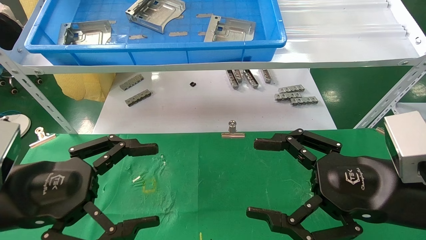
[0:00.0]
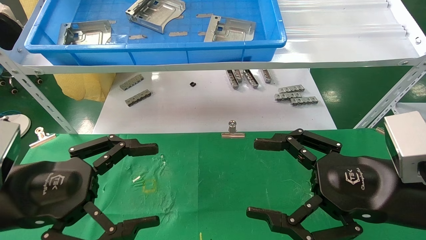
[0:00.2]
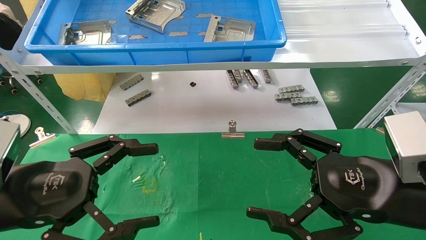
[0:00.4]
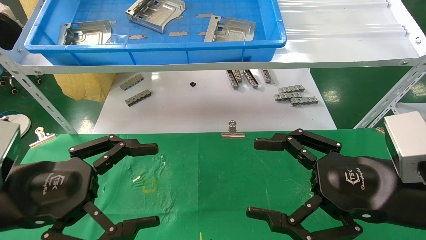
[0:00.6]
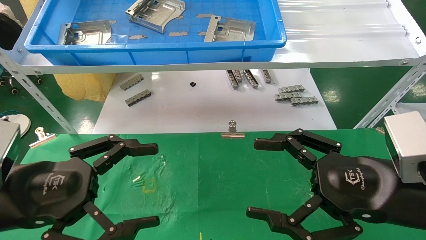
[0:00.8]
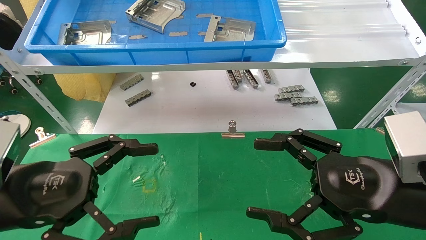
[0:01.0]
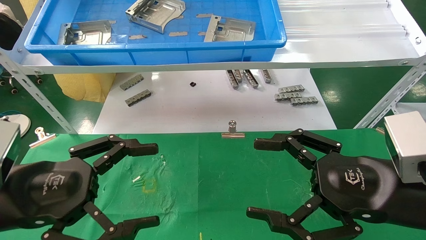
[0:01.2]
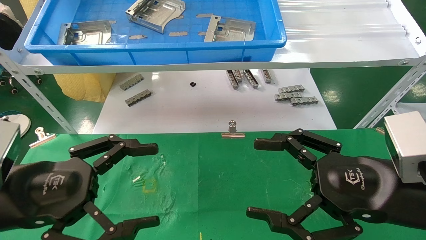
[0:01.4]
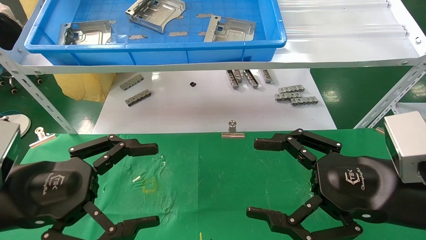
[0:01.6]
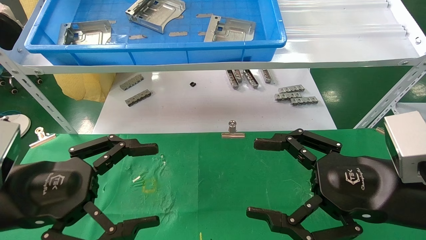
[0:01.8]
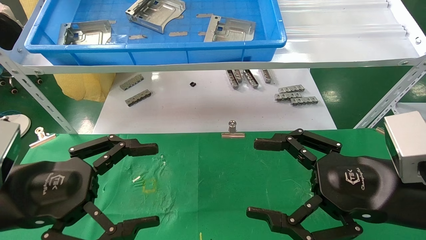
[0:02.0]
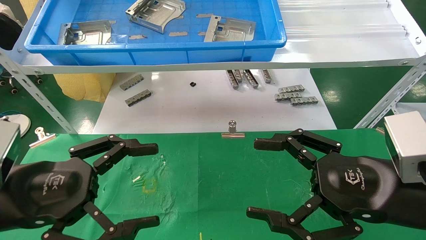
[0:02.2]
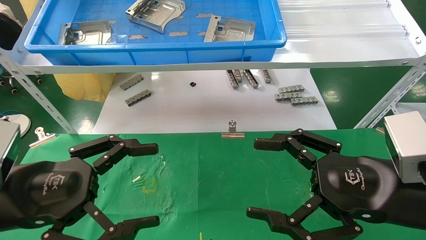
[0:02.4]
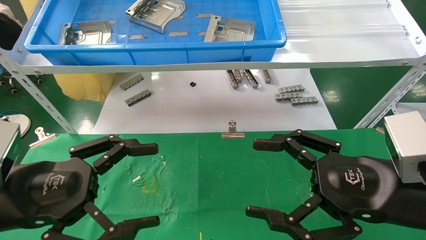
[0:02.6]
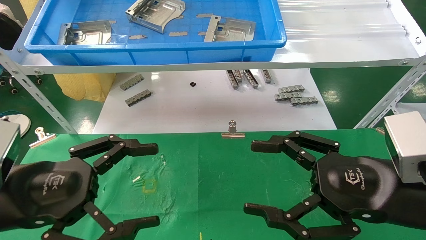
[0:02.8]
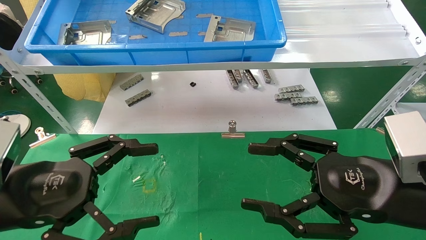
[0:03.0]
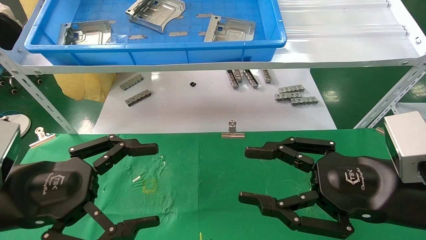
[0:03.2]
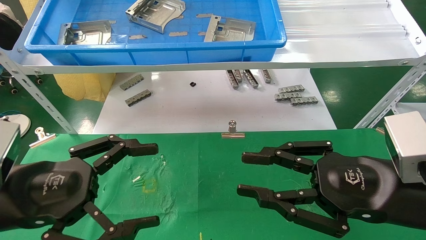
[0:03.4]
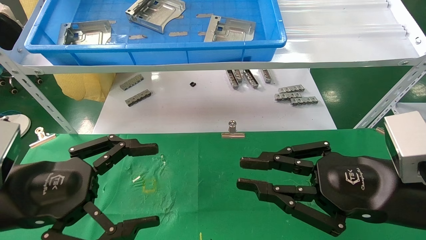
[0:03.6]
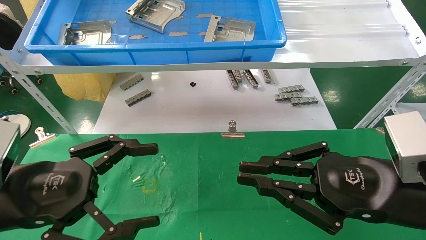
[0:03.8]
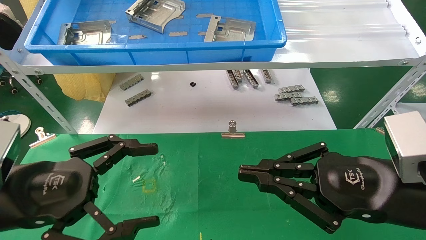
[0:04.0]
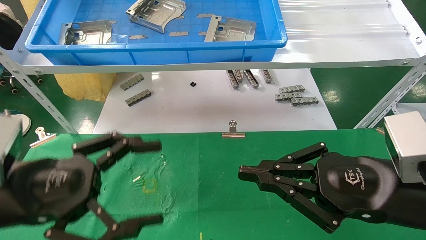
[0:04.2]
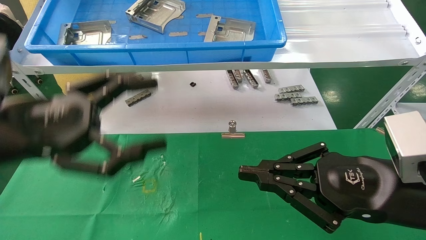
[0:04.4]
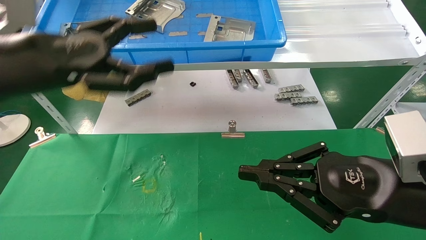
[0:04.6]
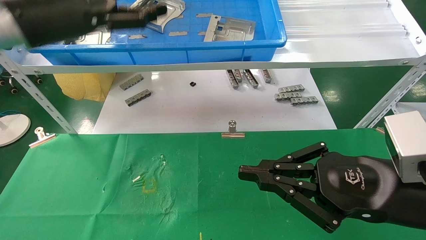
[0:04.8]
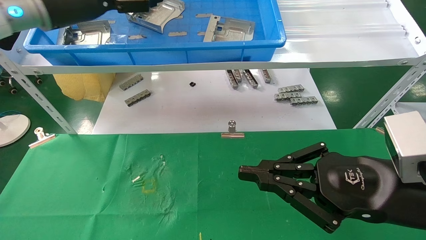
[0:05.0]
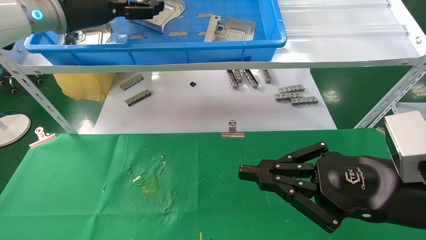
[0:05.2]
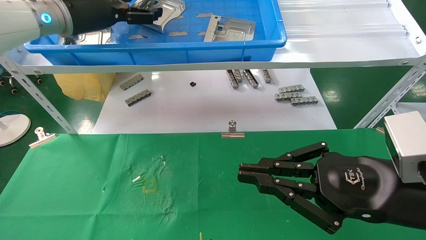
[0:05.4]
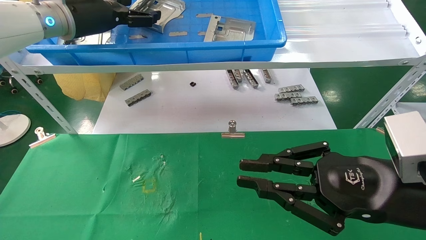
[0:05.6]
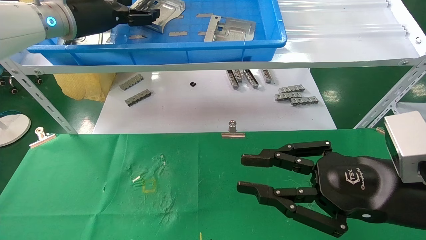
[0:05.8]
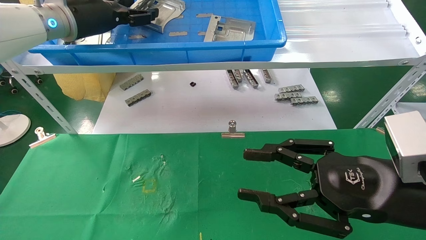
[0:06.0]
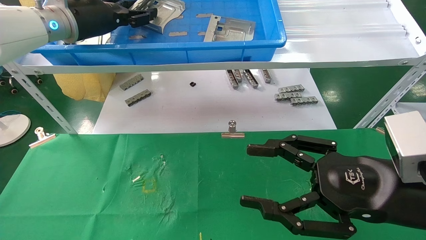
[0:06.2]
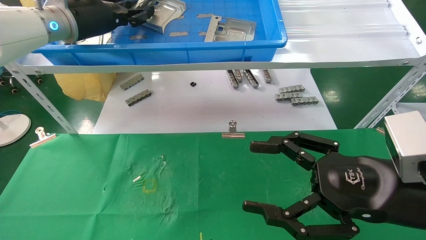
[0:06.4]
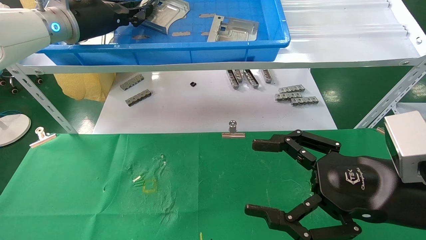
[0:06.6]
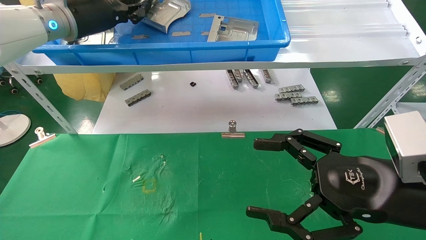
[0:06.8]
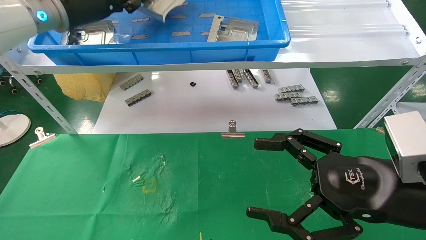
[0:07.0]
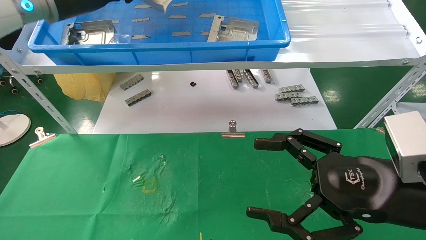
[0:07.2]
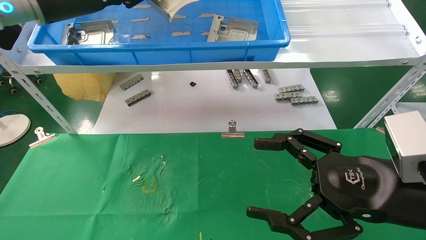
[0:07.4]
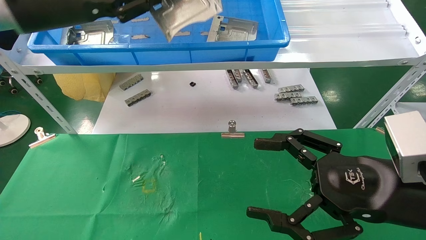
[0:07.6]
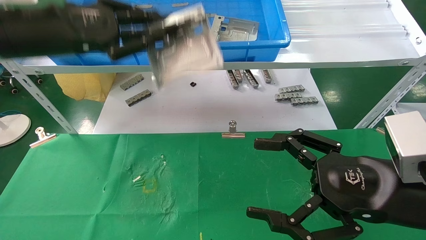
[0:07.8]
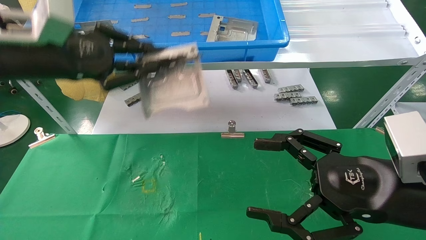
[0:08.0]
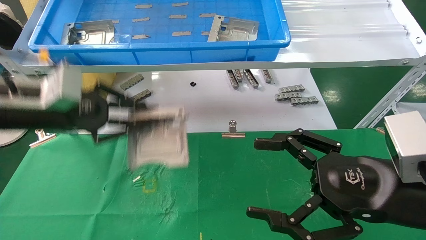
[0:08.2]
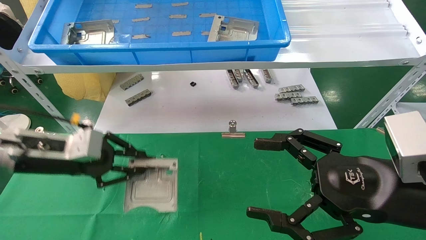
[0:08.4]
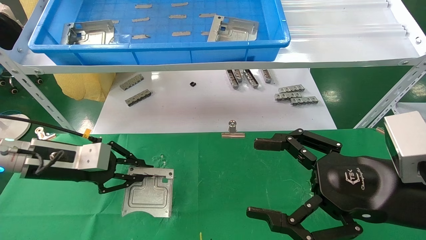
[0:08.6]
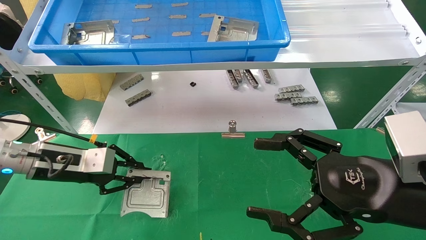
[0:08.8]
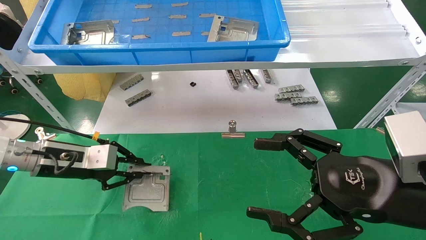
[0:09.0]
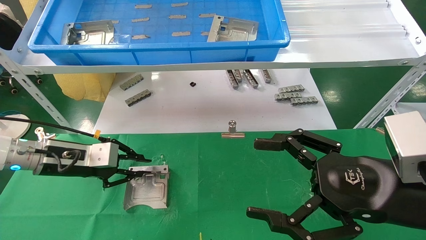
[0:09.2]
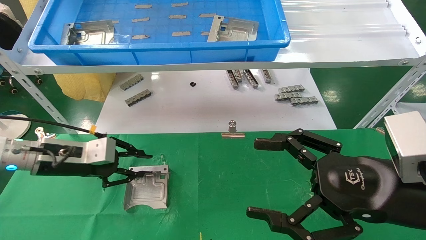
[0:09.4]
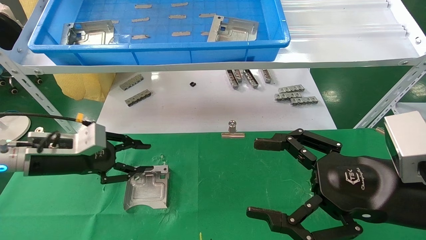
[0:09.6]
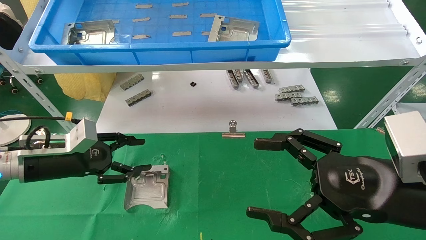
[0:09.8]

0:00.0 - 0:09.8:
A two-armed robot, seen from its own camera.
Task of the whole recording: use the mechanical arm to pick up the parts and place them on the table.
Step, 0:04.6 - 0:06.6: Pick up the hard drive bracket from the feeding area.
Step, 0:06.8 - 0:09.2: Place the hard drive bracket into the box.
0:00.0 - 0:02.8: Neither gripper changes place.
0:02.8 - 0:04.2: The right gripper closes.
0:04.2 - 0:05.6: The left gripper is displaced forward and upward by approximately 30 cm.
0:05.6 - 0:07.0: The right gripper opens up, while the left gripper closes its fingers.
0:07.0 - 0:08.4: The left gripper goes some 25 cm downward and backward.
0:08.4 - 0:09.8: The left gripper goes roughly 5 cm downward, and opens.

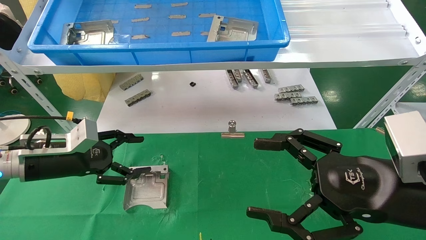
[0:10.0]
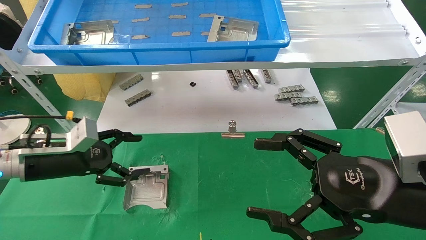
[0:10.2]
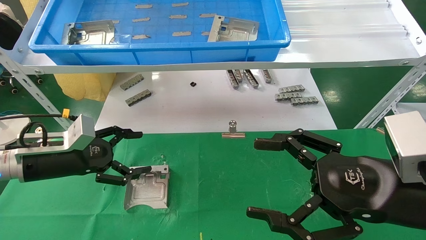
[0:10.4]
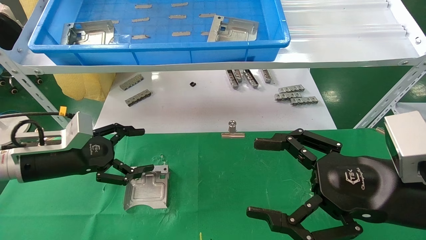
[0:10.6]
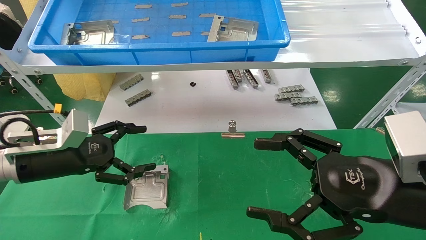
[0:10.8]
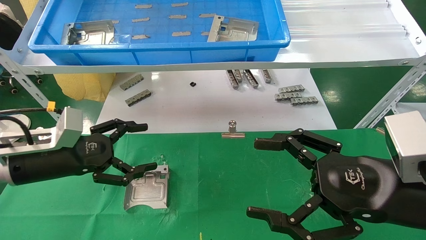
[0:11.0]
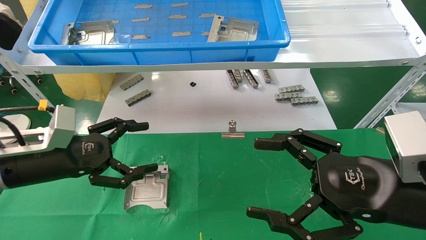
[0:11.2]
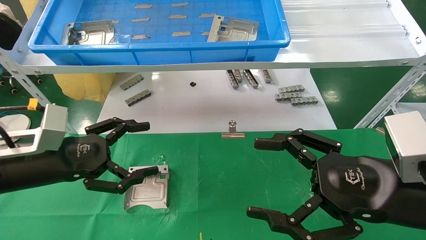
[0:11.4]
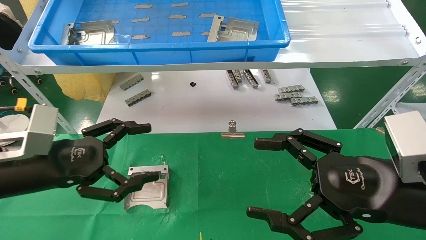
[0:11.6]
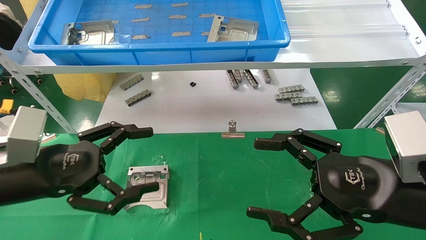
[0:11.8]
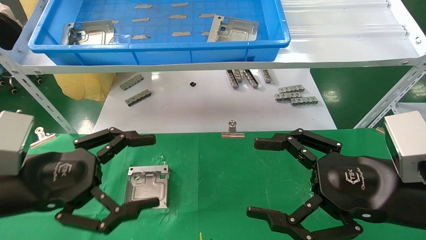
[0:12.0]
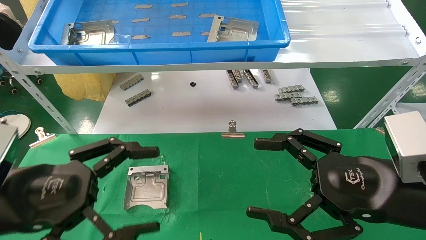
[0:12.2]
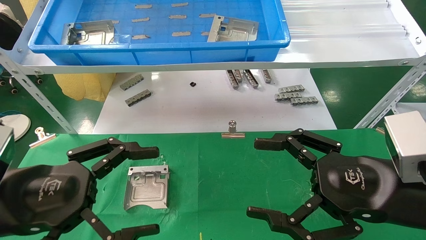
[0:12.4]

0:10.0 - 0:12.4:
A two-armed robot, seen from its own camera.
Task of the whole recording: use the mechanical arm to pick up the parts and place them on the table.
0:10.0 - 0:11.2: The left gripper travels backward by approximately 5 cm, and opens its fingers.
0:11.2 - 0:12.4: The left gripper goes some 10 cm backward.
